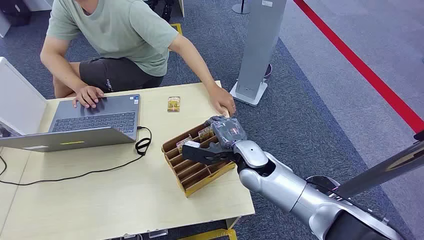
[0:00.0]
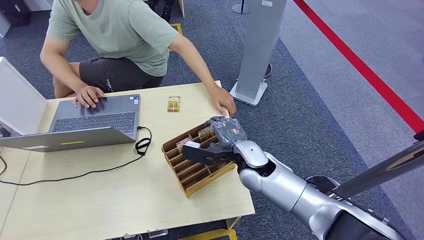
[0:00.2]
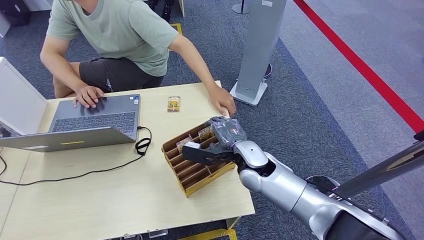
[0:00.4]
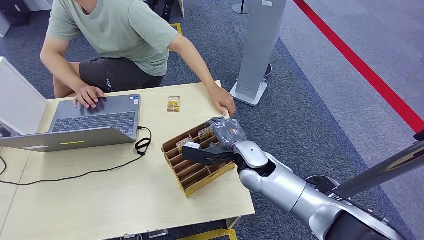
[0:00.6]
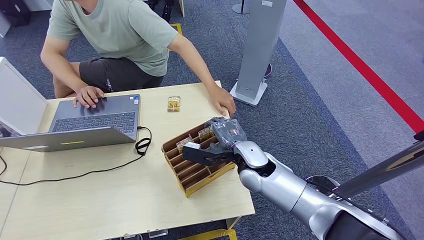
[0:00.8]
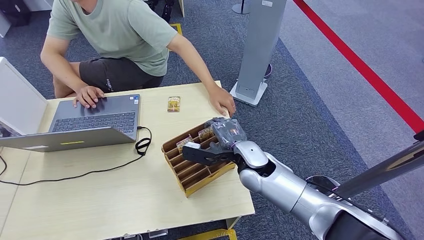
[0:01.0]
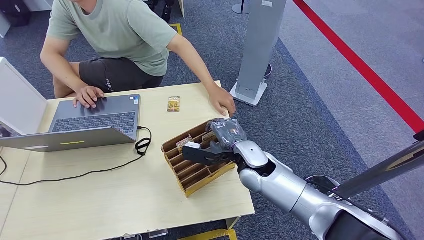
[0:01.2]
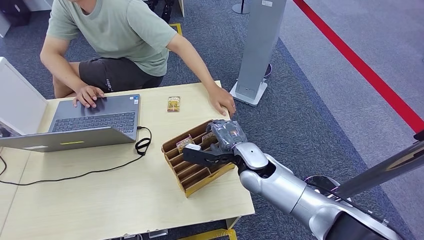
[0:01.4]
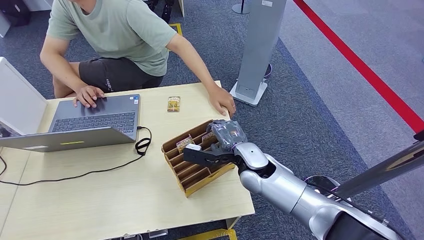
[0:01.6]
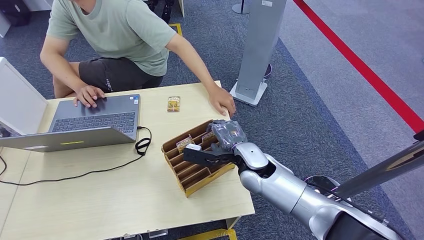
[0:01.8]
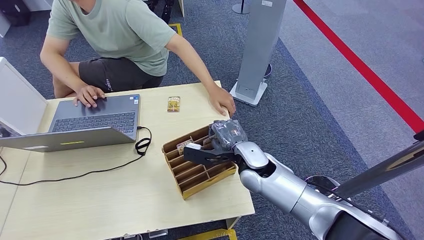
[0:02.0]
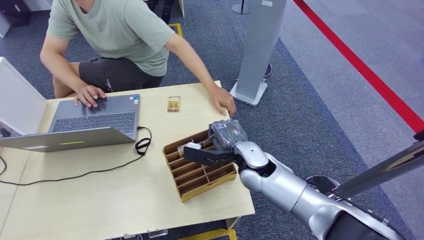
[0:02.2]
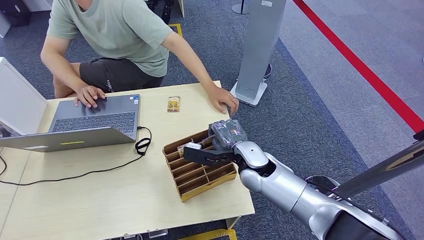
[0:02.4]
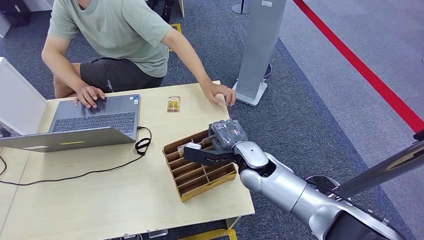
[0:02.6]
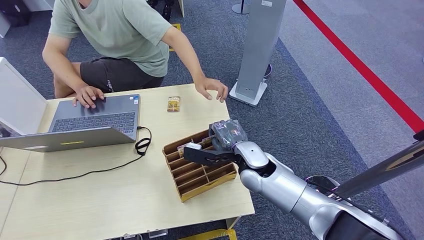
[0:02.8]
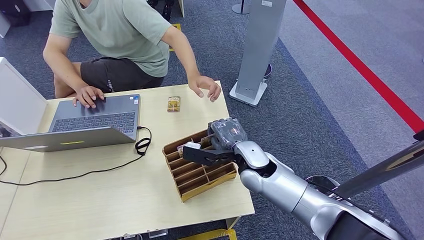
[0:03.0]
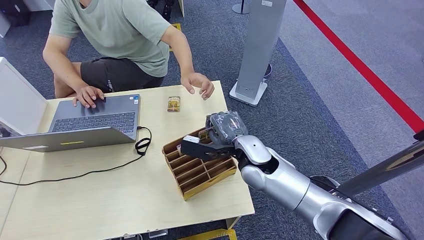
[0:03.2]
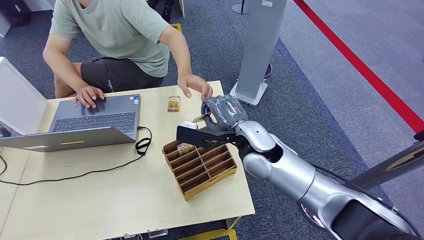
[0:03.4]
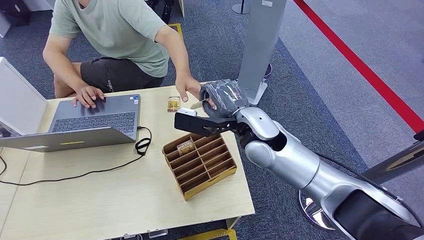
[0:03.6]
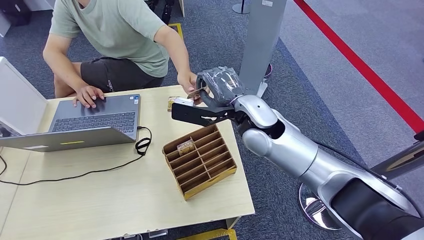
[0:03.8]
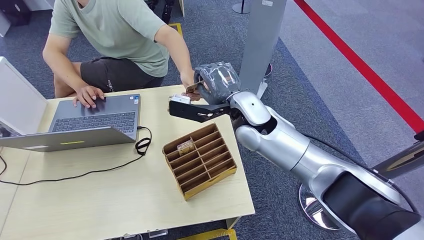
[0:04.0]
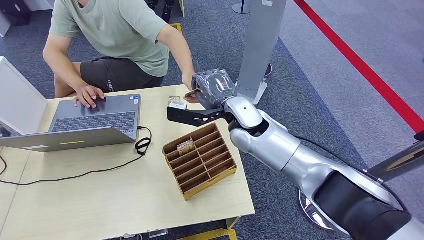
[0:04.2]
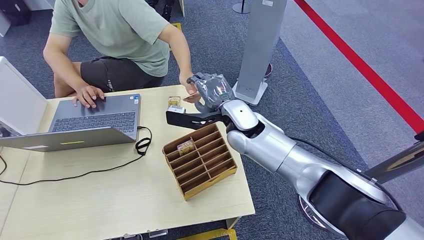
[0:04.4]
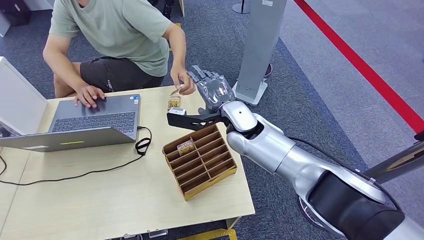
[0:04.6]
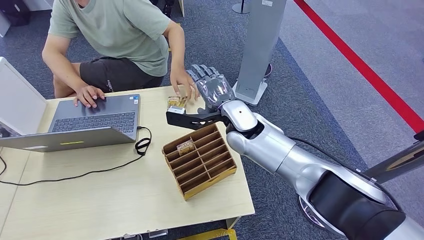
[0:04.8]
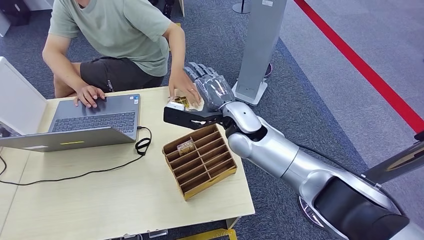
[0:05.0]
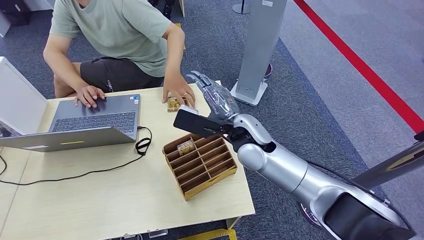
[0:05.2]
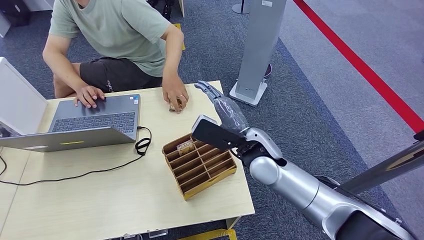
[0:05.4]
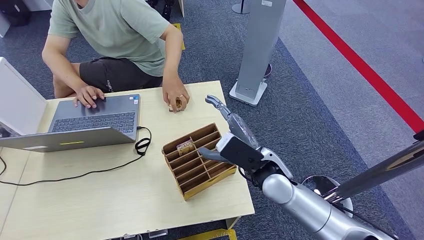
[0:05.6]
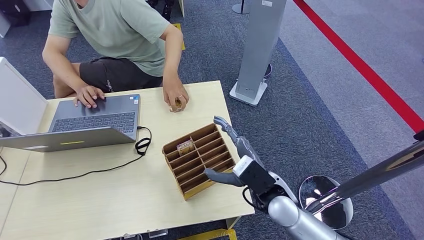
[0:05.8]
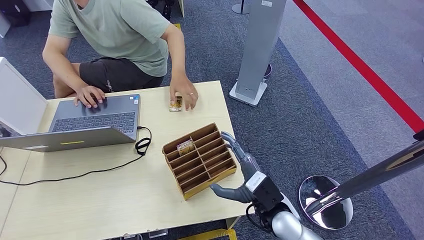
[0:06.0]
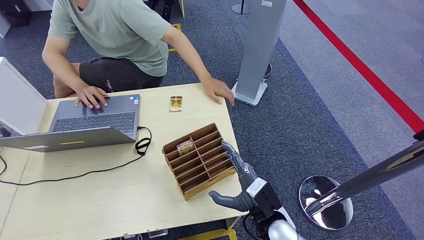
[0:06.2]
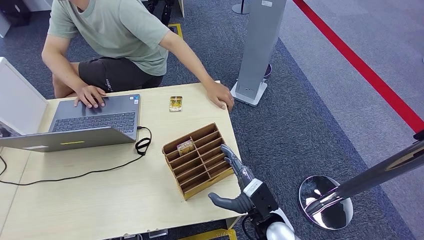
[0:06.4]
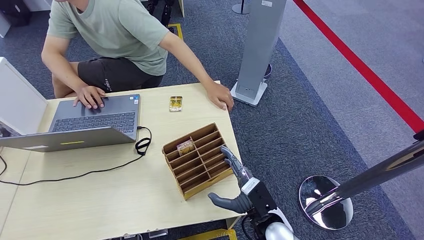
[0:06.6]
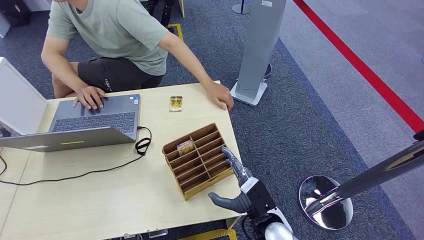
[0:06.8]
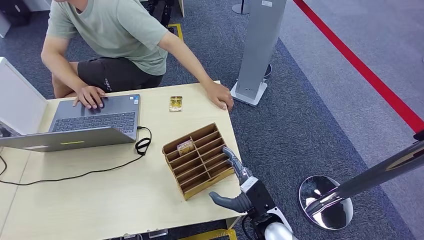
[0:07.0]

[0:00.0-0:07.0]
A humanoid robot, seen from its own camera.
Step, 0:00.0 to 0:03.0: Pick up the key card from the card box.
Step, 0:03.2 to 0:06.8: Hand the key card to the target.
0:01.4 to 0:02.8: Both hands stay put.
0:02.8 to 0:04.2: The right hand moves upward and forward, about 10 cm.
0:04.2 to 0:05.6: The right hand heads backward, downward and to the right, covering roughly 15 cm.
0:05.6 to 0:07.0: The right hand travels downward and backward by some 15 cm.

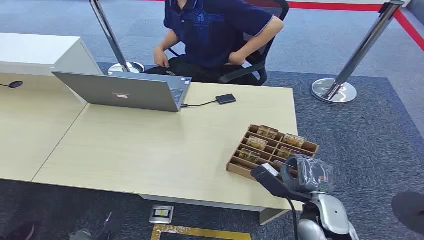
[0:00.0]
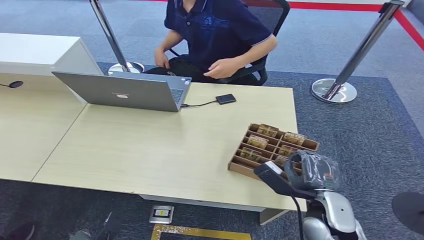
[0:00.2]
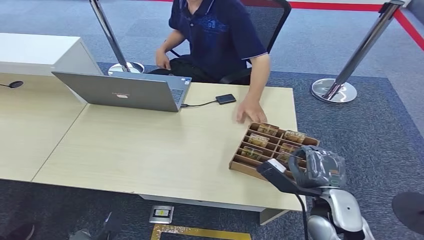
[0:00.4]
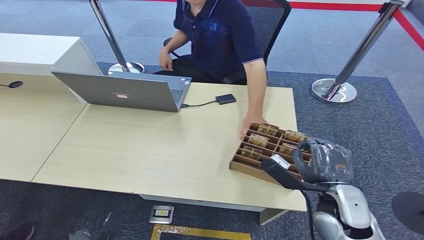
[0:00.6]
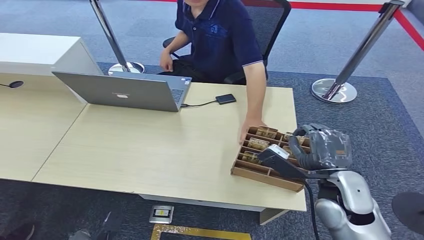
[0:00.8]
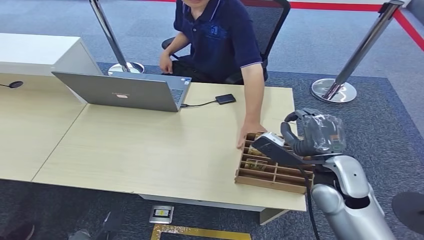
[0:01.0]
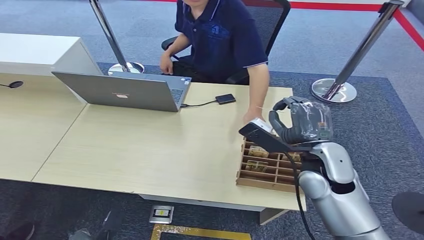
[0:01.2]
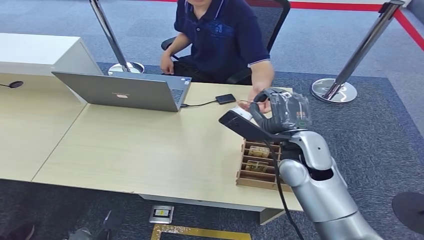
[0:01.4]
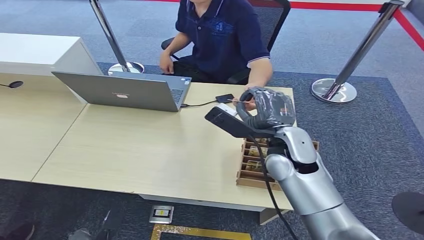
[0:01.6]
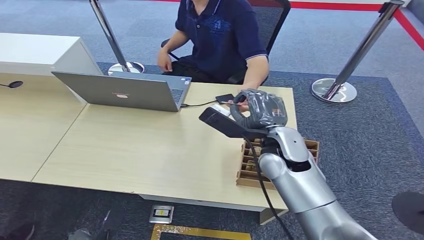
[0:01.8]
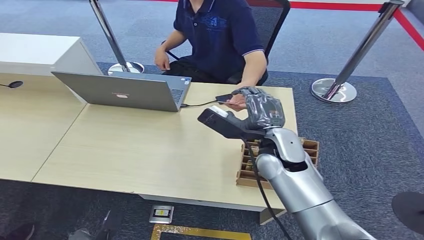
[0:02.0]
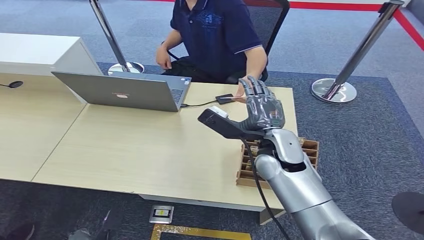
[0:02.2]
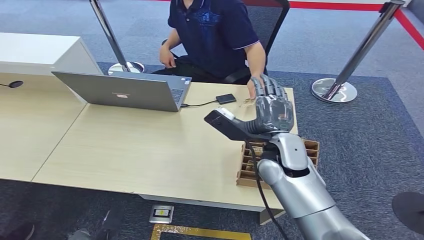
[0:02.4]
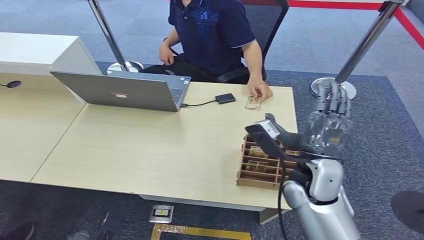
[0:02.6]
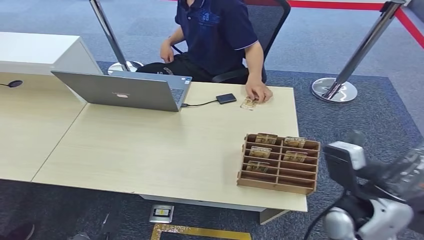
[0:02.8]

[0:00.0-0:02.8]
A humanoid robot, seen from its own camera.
Step, 0:00.0 to 0:01.0: Pick up the key card from the card box.
Step, 0:01.2 to 0:02.8: Hand the key card to the target.
0:01.4 to 0:02.8: The right hand travels backward and to the right by roughly 10 cm.
